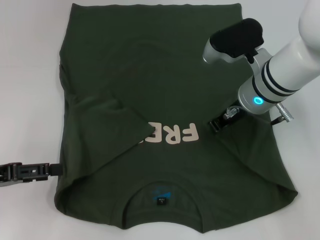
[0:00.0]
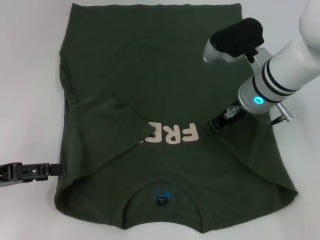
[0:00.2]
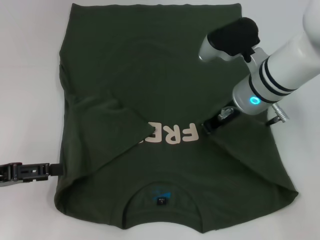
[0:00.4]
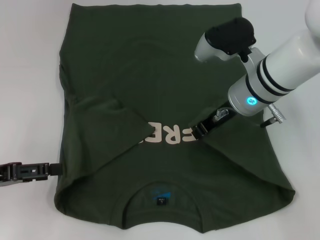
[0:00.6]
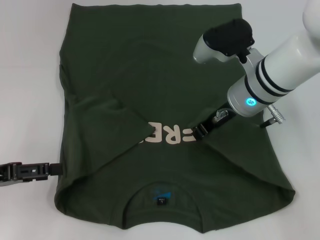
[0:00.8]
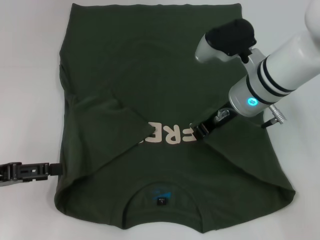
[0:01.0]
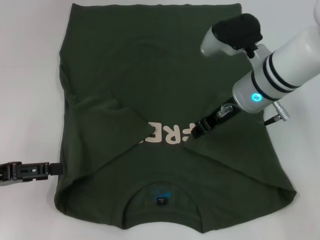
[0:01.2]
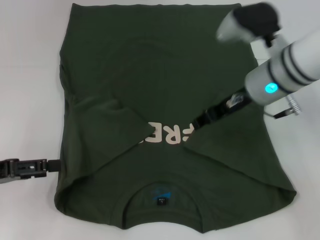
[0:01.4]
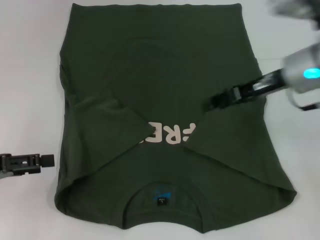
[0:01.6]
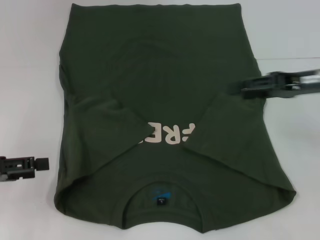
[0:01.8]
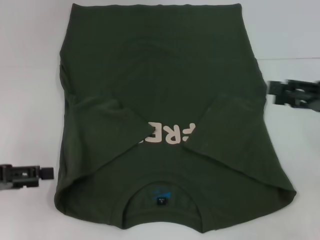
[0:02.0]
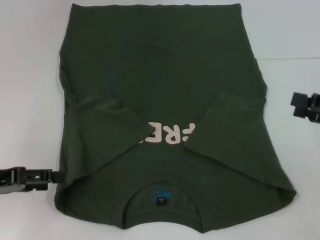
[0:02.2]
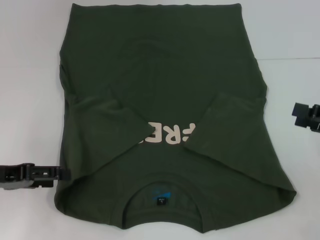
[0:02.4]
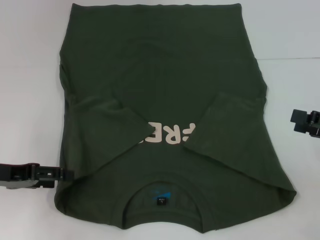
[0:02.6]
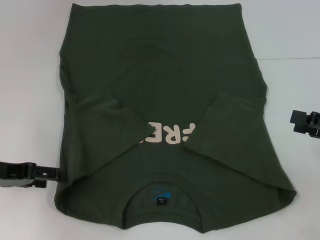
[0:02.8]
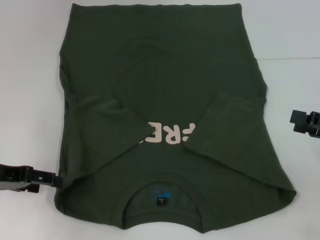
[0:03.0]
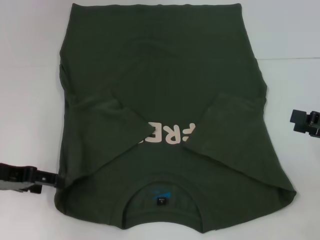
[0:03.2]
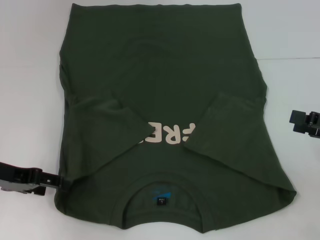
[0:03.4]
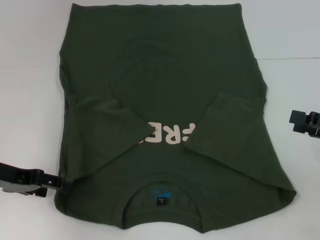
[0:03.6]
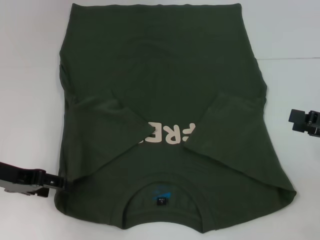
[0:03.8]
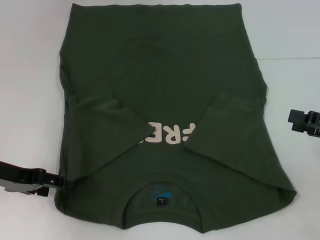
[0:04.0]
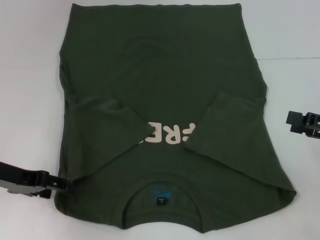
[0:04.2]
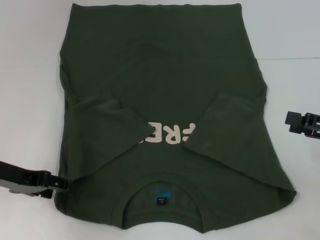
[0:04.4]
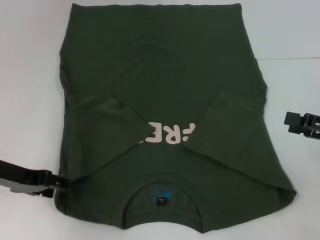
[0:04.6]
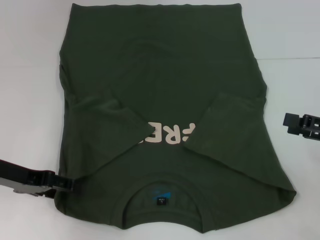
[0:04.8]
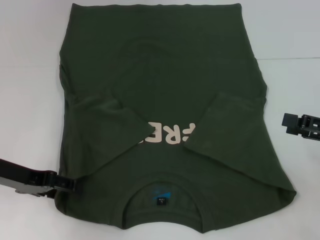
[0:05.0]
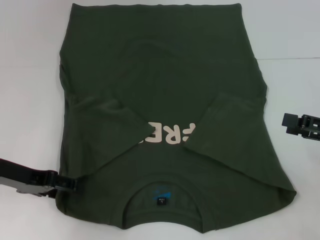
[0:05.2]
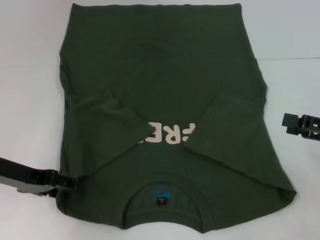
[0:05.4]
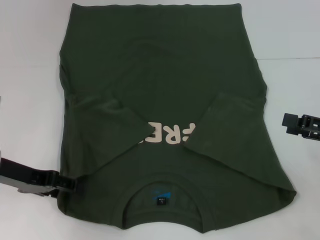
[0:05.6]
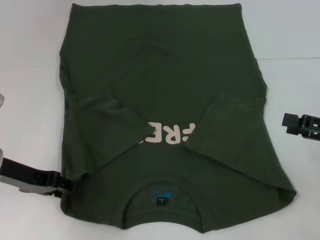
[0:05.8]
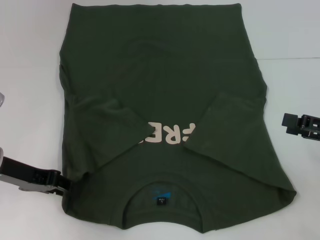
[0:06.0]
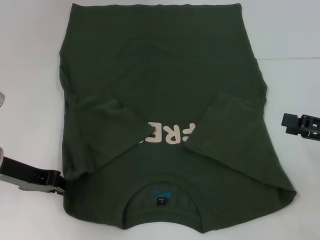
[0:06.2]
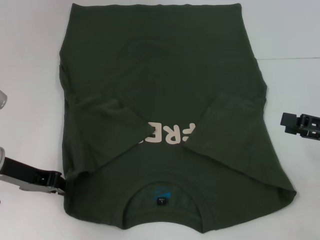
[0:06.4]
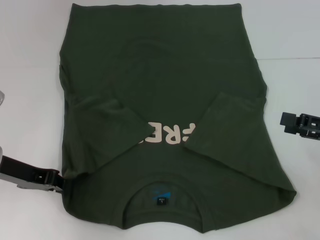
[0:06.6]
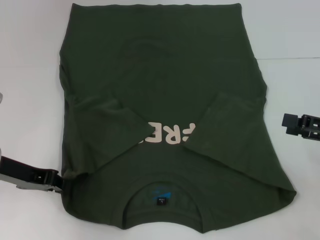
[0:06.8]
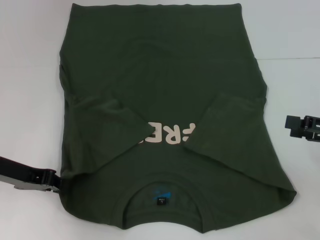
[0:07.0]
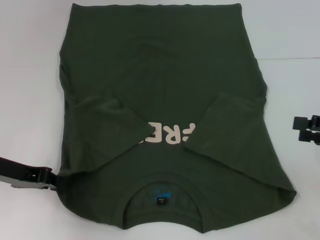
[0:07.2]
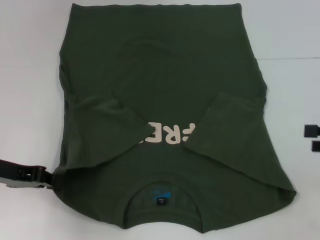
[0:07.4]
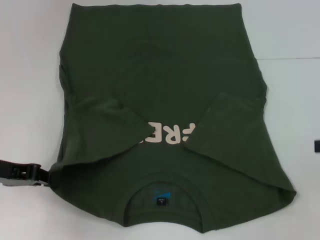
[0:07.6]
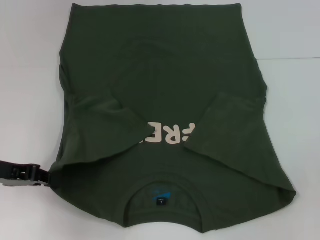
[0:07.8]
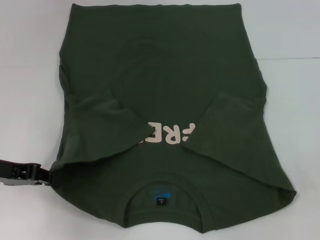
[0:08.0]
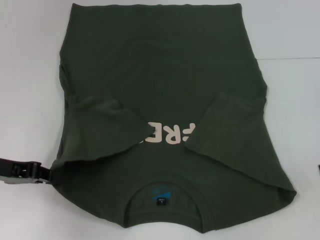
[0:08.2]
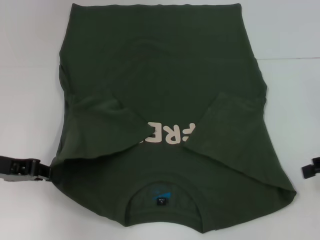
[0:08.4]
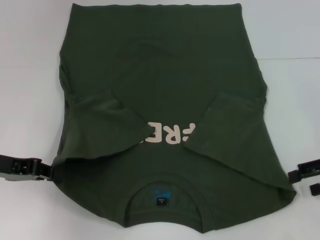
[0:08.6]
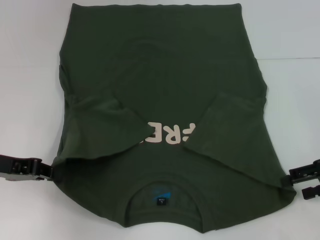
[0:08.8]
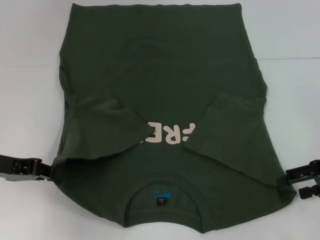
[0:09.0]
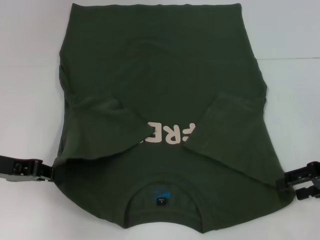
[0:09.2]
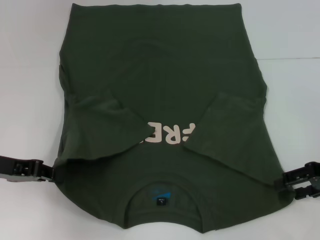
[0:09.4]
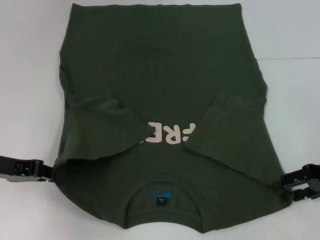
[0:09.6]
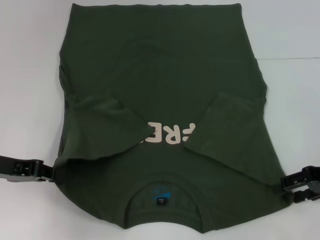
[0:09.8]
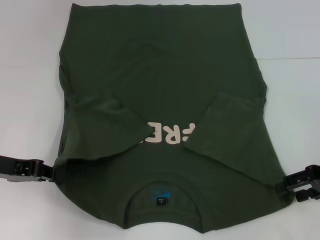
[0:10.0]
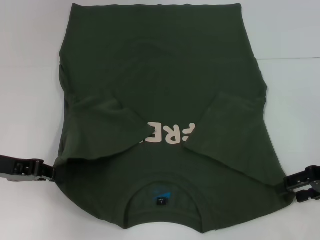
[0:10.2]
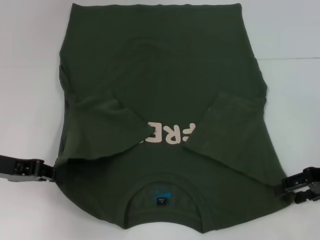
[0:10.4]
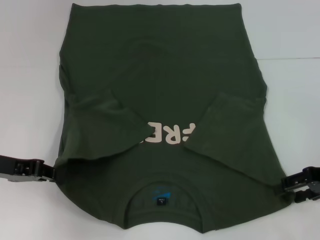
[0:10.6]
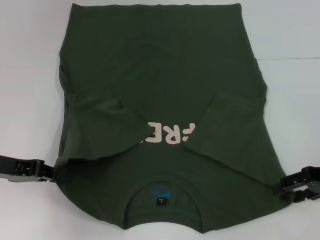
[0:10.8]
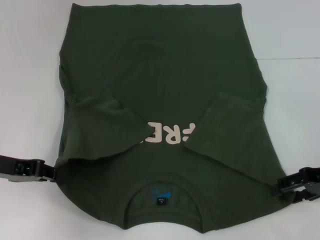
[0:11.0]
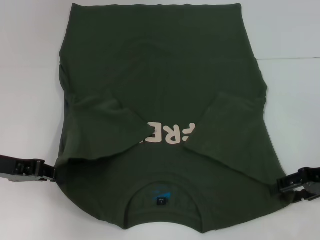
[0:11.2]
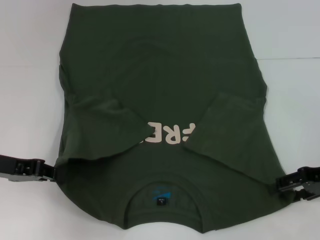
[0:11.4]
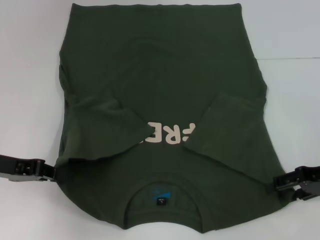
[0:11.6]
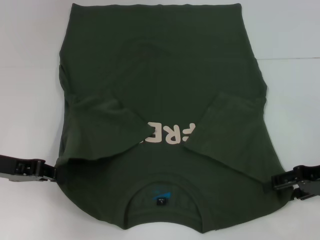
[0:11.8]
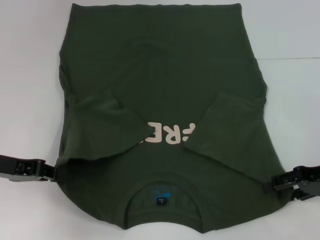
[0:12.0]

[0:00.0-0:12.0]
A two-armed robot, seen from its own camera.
Step, 0:00.0 to 0:06.4: Grab the bottom left corner with your left hand.
0:00.0 to 0:01.6: The right gripper shifts approximately 5 cm to the right, and opens its fingers.
0:01.6 to 0:03.0: The right gripper goes roughly 20 cm to the right, backward and downward, and opens up.
0:03.0 to 0:04.4: There are only small adjustments of the grippers.
0:04.4 to 0:06.0: The left gripper closes.
0:06.0 to 0:07.6: The right gripper changes place by some 5 cm; the left gripper closes its fingers.
0:07.6 to 0:09.0: The right gripper shifts roughly 5 cm to the left.
0:09.0 to 0:10.4: Neither gripper changes place.
0:10.4 to 0:12.0: Neither gripper changes place.

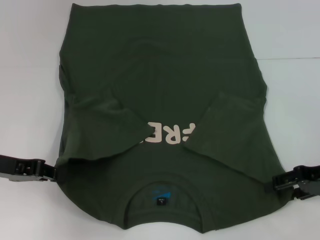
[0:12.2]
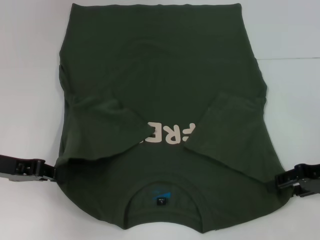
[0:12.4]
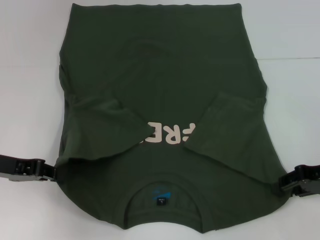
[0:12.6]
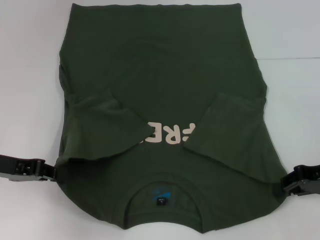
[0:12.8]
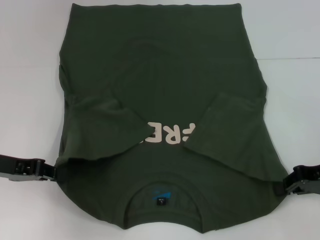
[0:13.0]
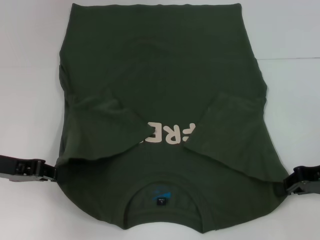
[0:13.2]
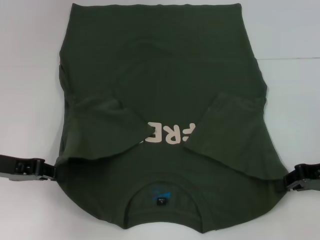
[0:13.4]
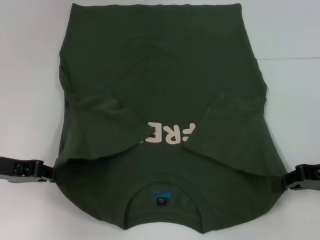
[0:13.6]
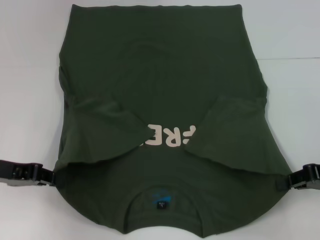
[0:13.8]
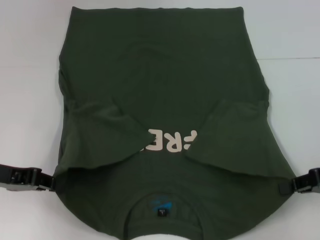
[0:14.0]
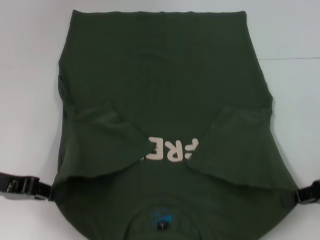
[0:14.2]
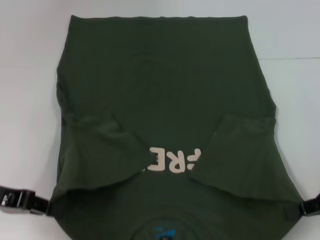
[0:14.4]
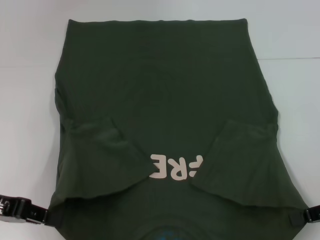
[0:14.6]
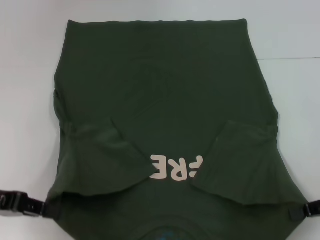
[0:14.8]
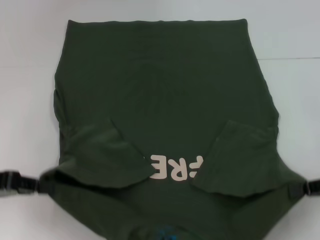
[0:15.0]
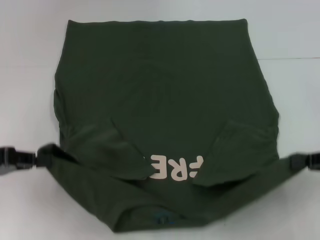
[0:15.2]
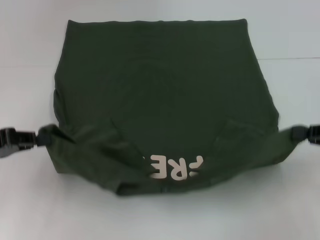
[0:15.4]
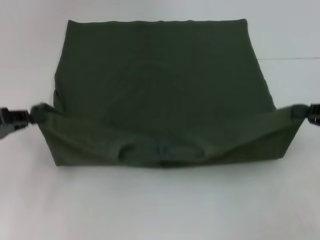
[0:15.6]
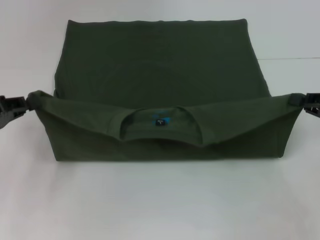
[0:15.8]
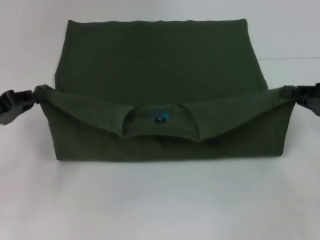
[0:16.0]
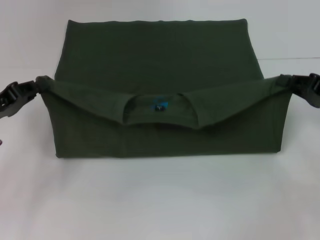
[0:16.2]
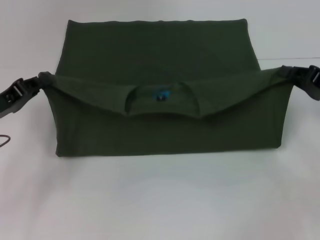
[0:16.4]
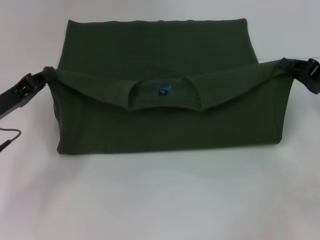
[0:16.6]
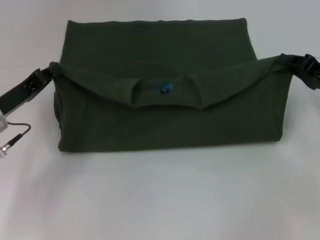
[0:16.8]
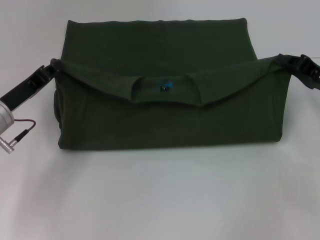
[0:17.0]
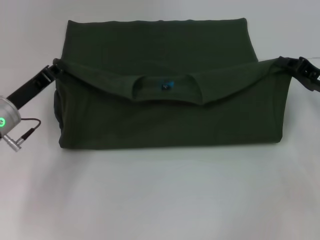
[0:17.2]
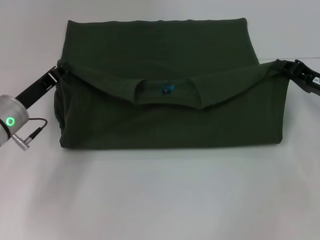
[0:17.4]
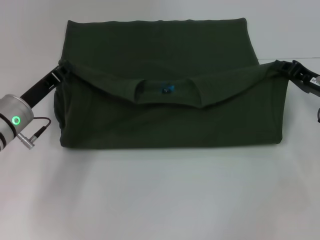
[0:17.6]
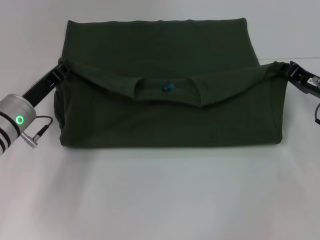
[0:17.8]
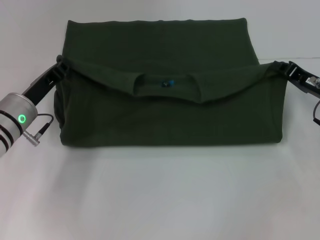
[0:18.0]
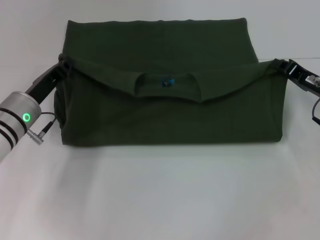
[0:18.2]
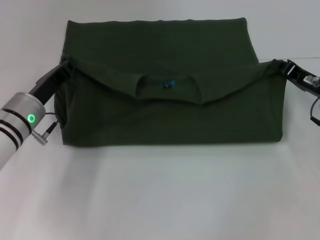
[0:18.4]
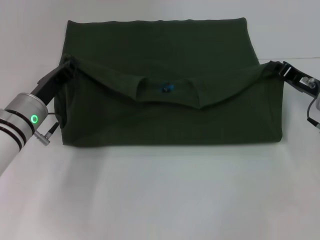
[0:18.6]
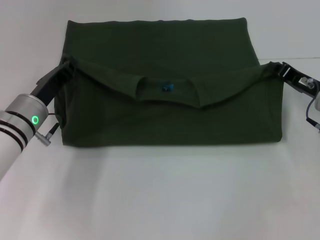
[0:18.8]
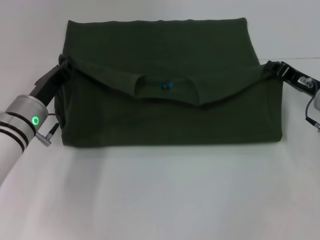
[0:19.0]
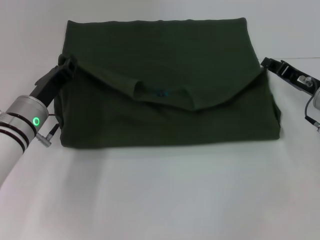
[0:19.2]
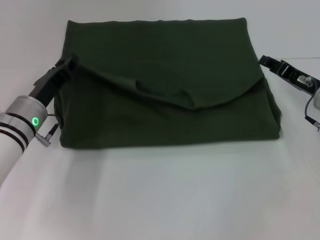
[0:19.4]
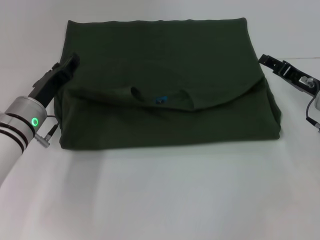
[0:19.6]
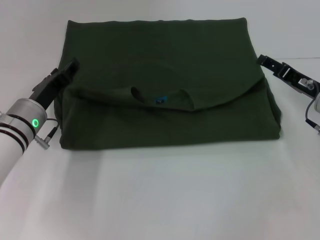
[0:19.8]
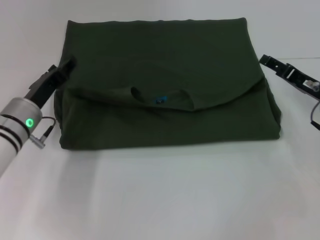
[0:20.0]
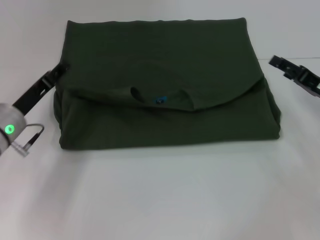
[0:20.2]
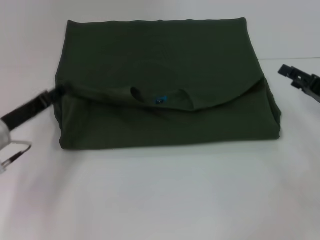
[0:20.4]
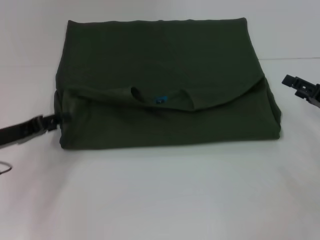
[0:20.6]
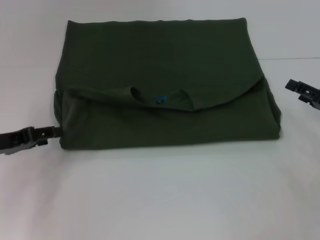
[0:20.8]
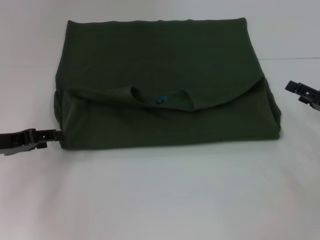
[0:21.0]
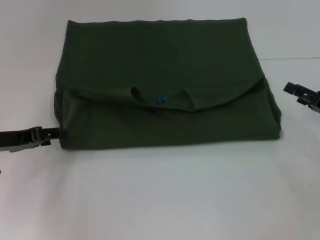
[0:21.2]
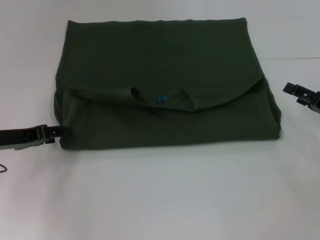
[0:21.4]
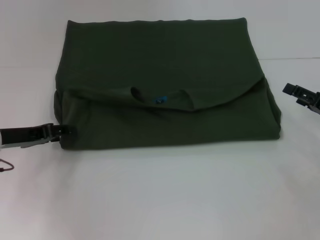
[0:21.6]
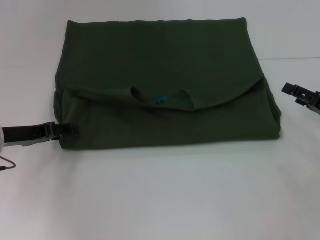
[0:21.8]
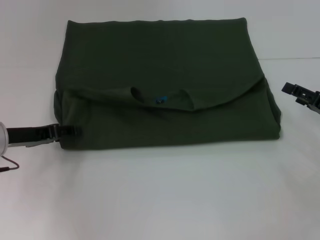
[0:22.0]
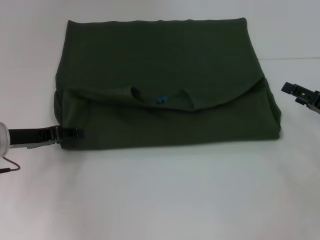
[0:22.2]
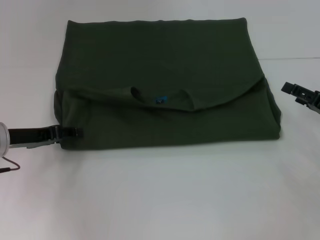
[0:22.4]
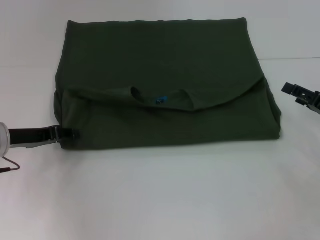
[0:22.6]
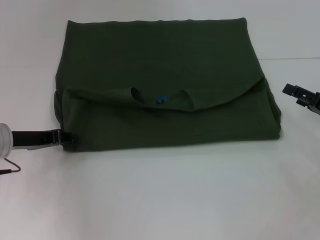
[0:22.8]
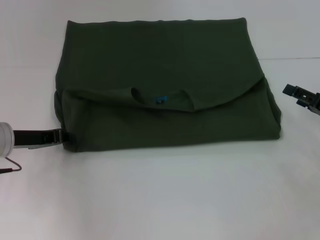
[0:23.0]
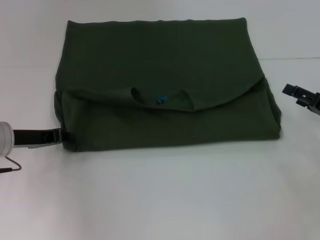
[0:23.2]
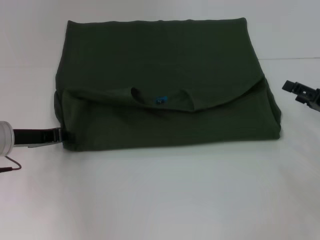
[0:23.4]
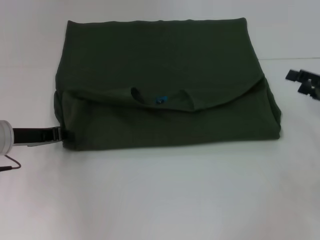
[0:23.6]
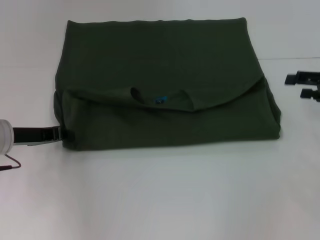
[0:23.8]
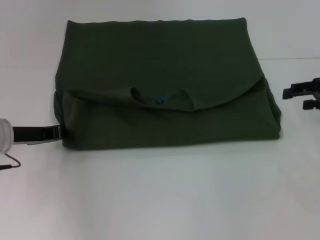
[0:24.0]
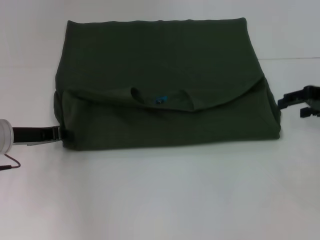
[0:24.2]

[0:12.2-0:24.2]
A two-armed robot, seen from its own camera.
Step, 0:13.8 to 0:20.0: Fold the clothes with your left hand.
Step, 0:13.8 to 0:20.0: Fold the clothes with your right hand.
0:12.2 to 0:13.8: The right gripper closes up.
0:13.8 to 0:15.2: The grippers move only a little.
0:15.2 to 0:16.6: The grippers both shift forward by some 5 cm.
0:16.6 to 0:18.2: The left gripper heads to the right, covering approximately 5 cm.
0:18.2 to 0:19.8: The left gripper opens; the right gripper opens its fingers.
0:19.8 to 0:21.2: The left gripper moves to the left, approximately 10 cm. Meanwhile the right gripper heads to the right and backward, covering about 10 cm.
0:21.2 to 0:22.6: The grippers move only a little.
0:22.6 to 0:24.2: The left gripper closes its fingers; the right gripper goes approximately 10 cm upward and forward.
